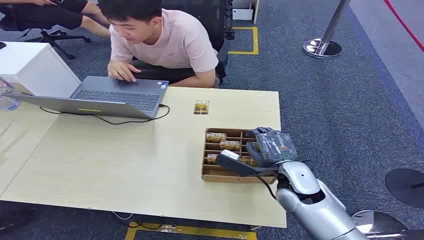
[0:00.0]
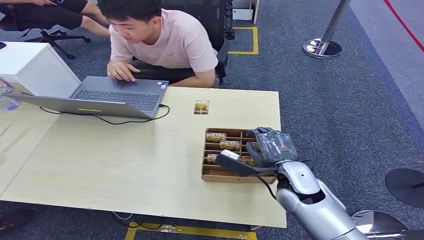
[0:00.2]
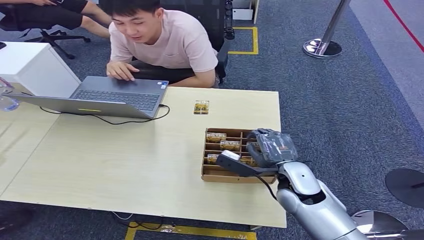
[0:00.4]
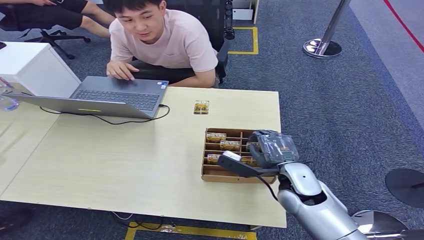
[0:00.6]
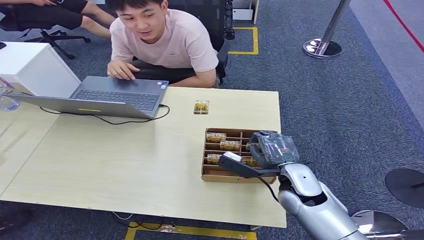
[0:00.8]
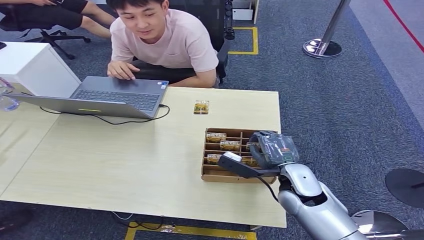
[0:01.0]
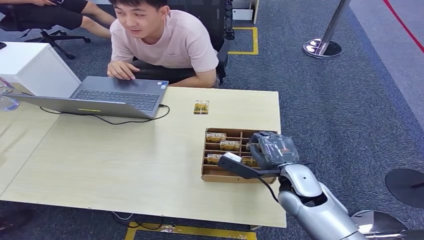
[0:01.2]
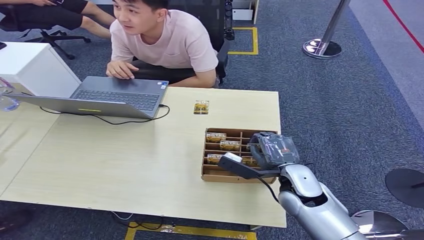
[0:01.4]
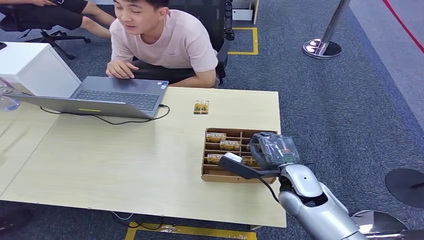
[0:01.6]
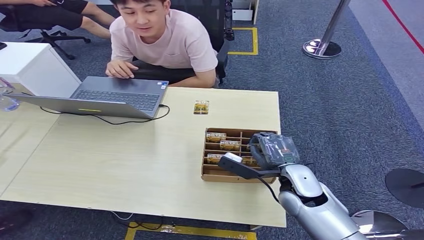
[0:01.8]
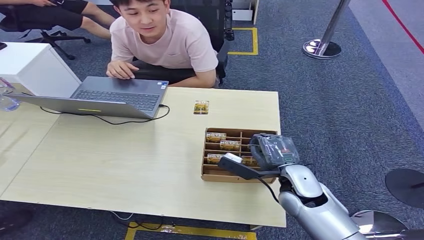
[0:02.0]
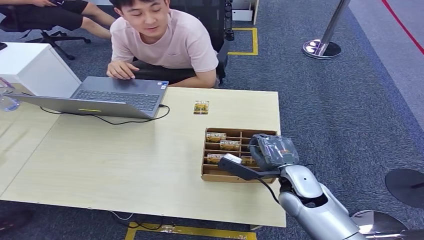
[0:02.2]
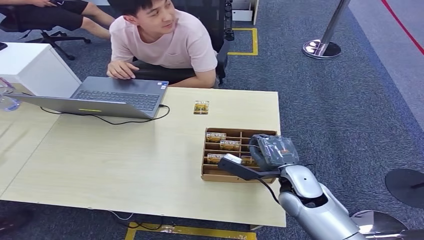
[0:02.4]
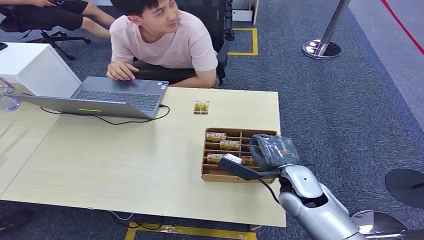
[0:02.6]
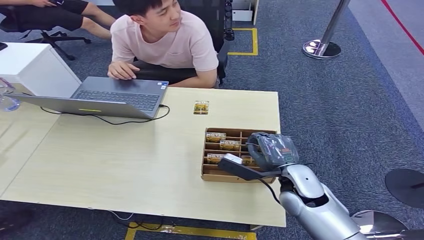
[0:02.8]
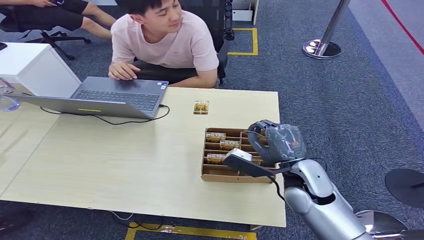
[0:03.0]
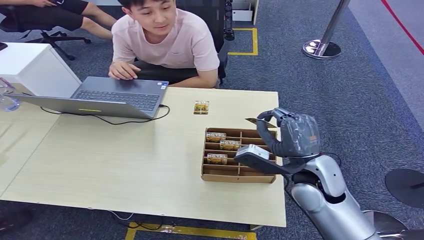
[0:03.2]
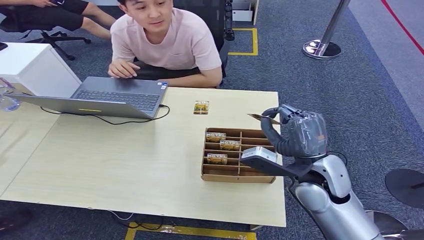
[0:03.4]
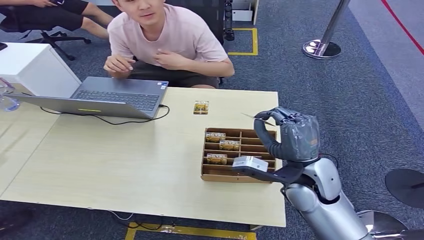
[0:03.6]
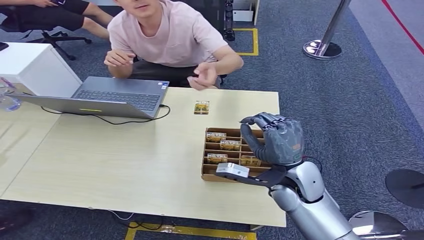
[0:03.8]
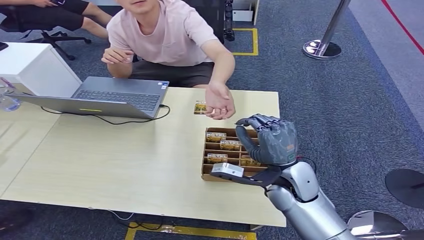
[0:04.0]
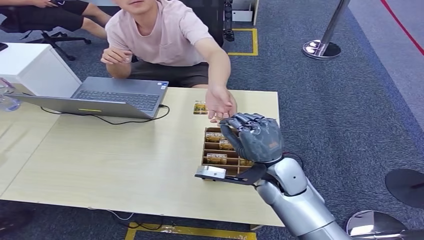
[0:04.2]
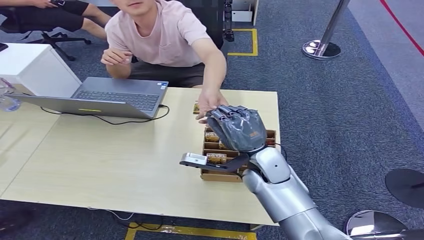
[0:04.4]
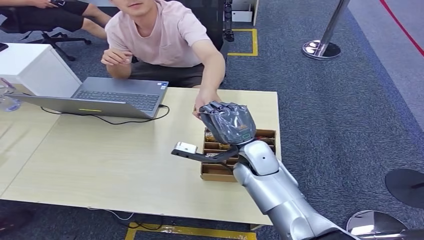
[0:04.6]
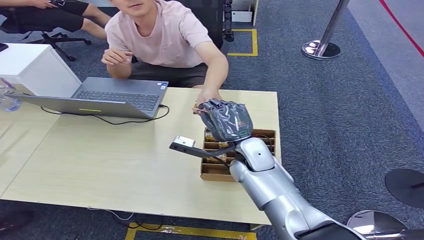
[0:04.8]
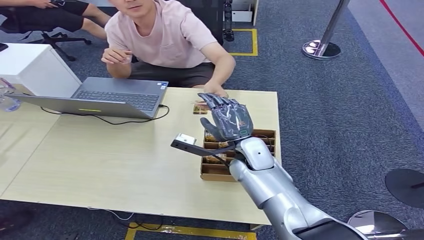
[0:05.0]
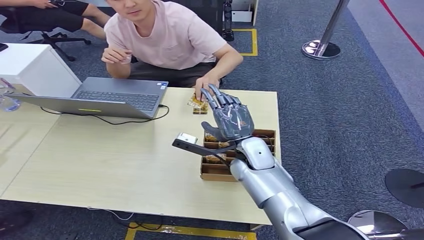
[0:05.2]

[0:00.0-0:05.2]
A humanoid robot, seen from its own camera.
Step, 0:00.0 to 0:03.0: Pick up the room card from the card holder.
Step, 0:03.2 to 0:05.2: Hand the room card to the target.
0:01.8 to 0:03.4: The right hand is displaced upward by roughly 10 cm.
0:03.4 to 0:05.2: The right hand travels to the left, forward and downward by about 15 cm.
